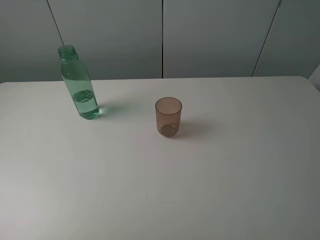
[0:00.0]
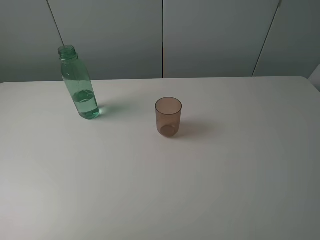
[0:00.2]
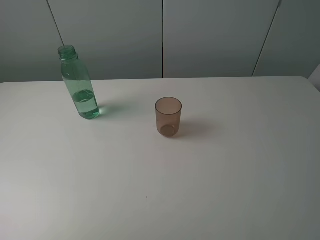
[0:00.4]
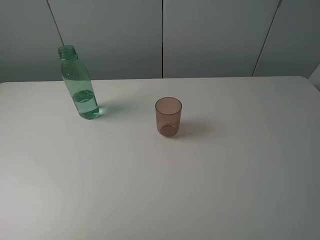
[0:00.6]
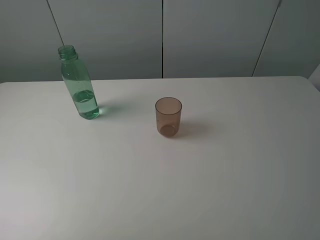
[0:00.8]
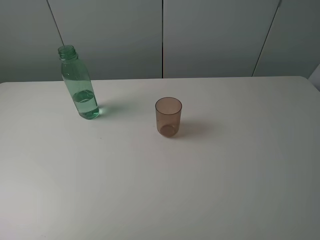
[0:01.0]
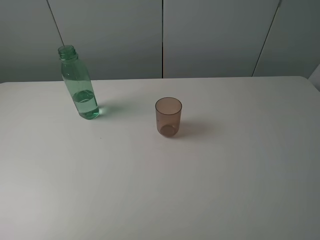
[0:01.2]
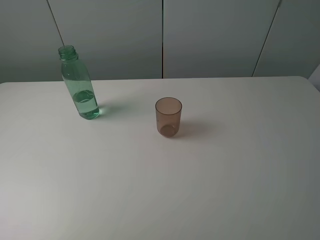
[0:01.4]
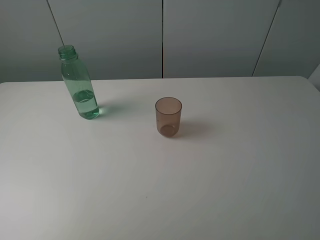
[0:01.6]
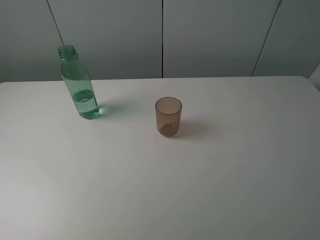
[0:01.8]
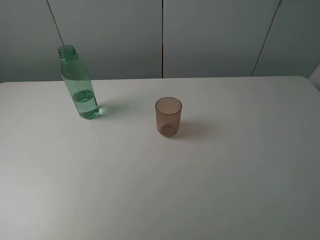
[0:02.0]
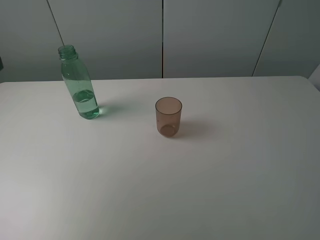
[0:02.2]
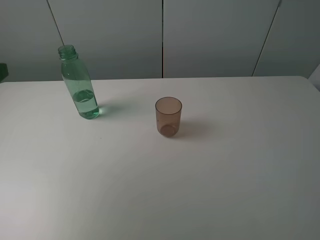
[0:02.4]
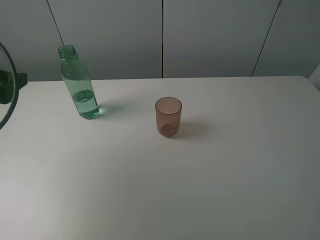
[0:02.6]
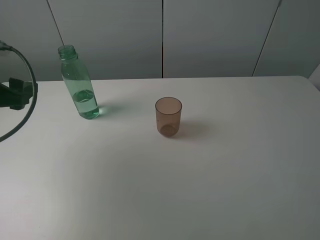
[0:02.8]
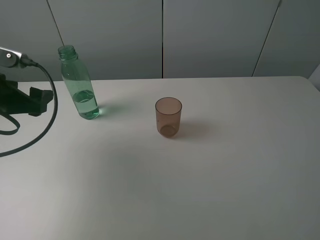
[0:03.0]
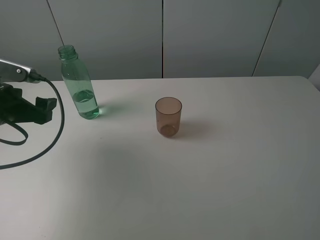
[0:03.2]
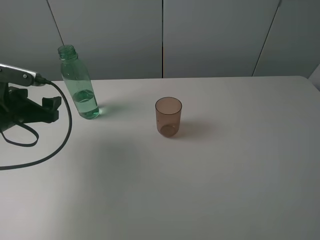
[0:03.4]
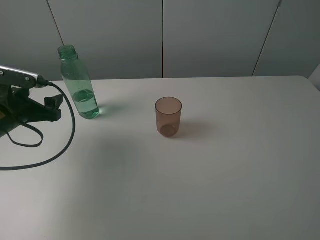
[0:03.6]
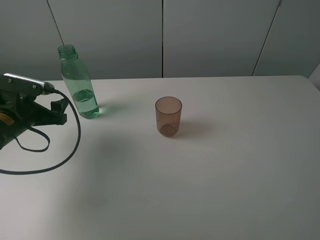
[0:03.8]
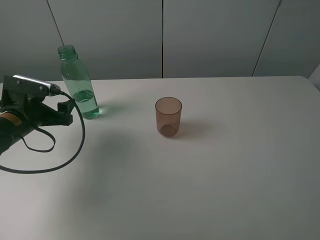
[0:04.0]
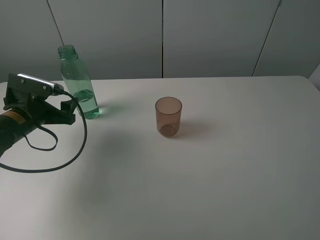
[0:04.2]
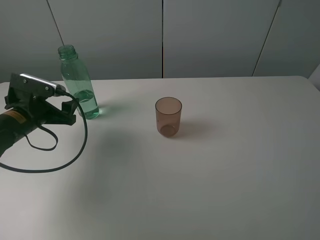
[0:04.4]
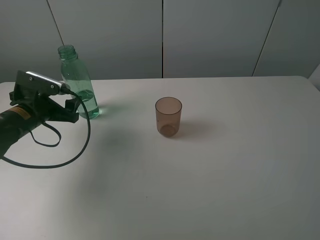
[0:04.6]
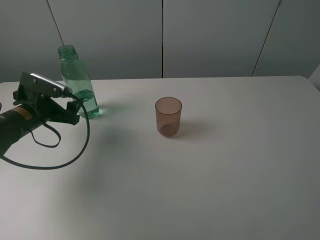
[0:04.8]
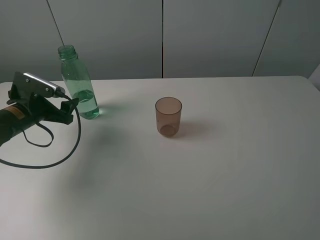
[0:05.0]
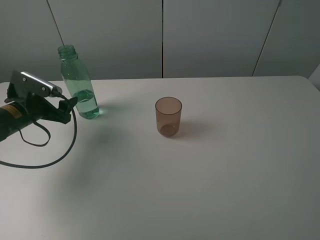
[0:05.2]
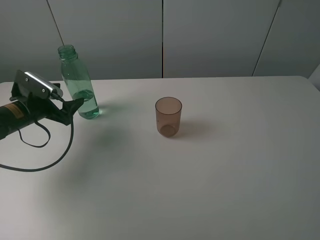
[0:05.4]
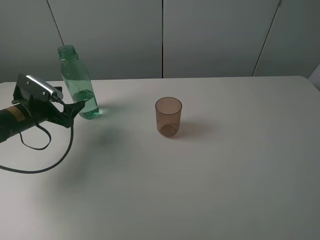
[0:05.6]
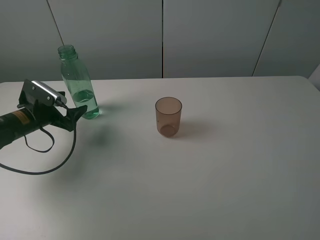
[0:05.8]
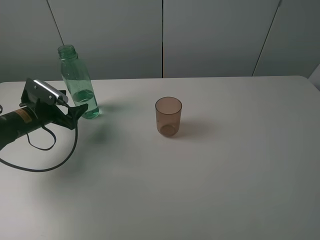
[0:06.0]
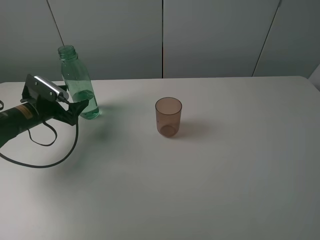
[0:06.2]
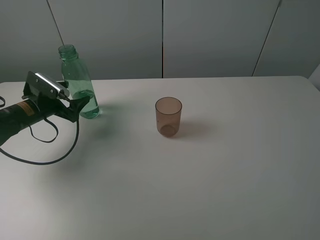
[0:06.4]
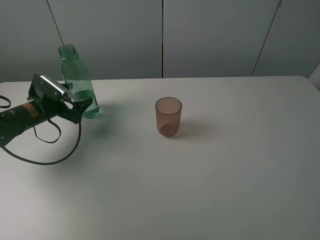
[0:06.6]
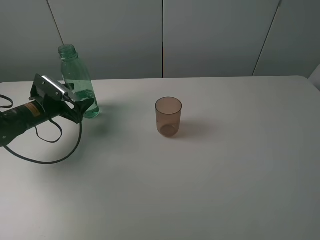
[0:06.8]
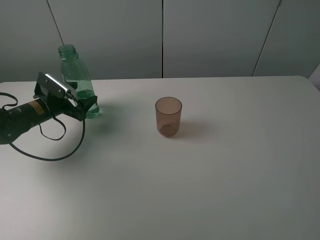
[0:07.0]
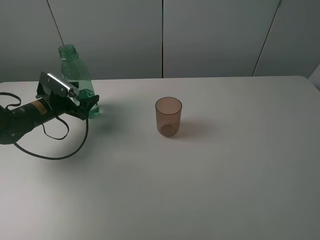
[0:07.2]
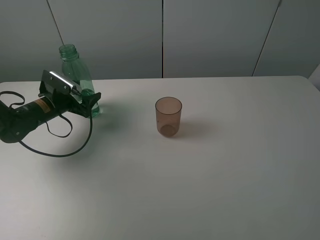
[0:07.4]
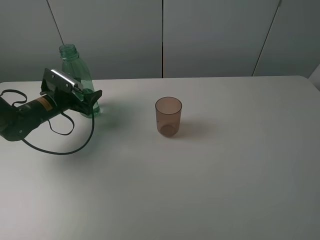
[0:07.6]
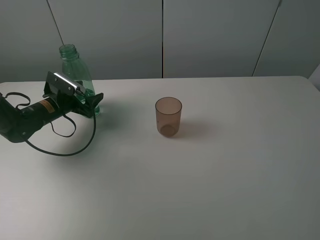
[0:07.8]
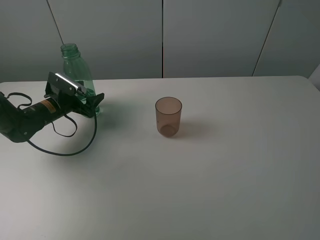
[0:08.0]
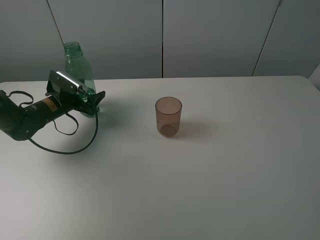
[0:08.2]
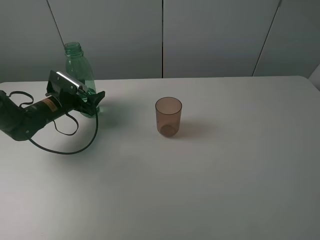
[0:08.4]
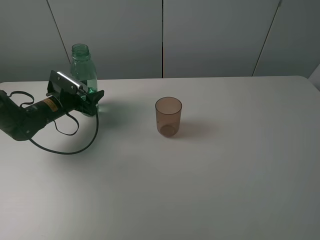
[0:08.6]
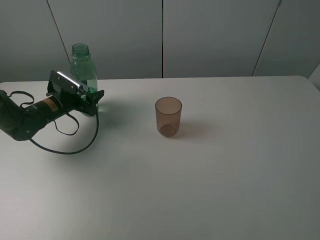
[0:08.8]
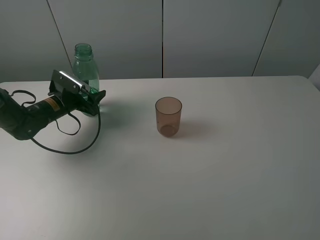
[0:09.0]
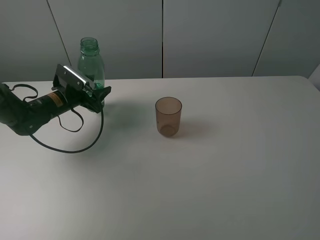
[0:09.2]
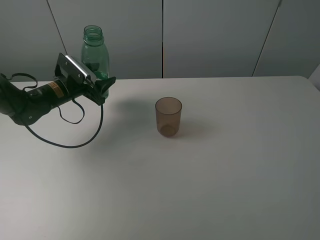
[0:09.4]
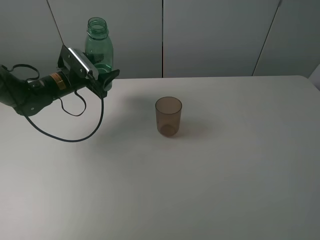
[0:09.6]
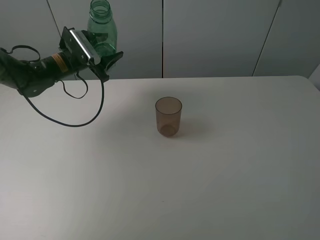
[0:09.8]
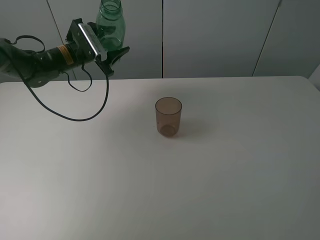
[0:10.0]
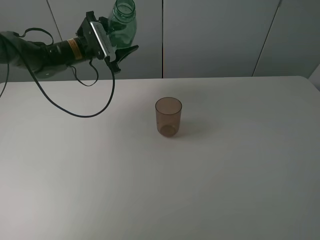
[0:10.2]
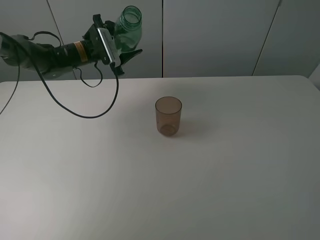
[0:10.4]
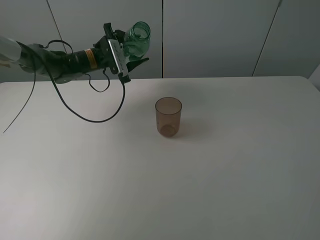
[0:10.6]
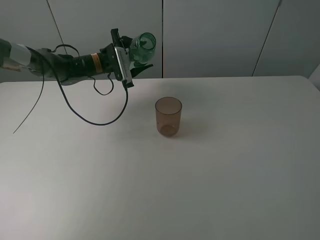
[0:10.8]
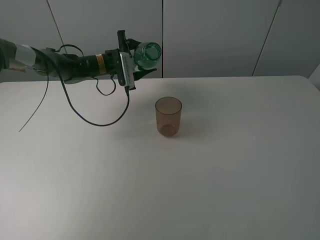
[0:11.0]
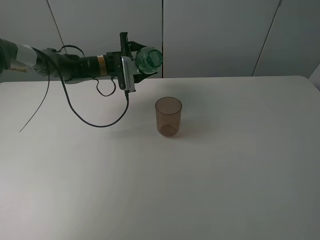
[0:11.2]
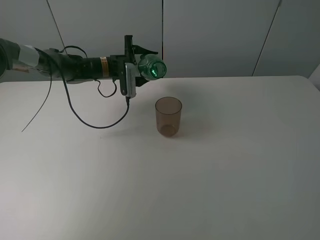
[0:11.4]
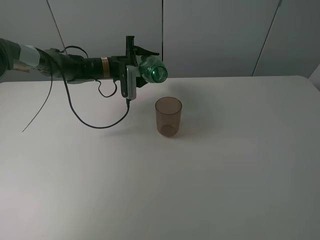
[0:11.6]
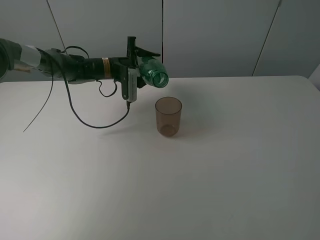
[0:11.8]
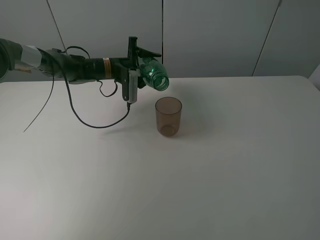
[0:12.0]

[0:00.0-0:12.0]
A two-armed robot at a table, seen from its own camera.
Task of the whole recording: pick up the bottle filled with water and pour it into the pink cup.
Step, 0:00.0 to 0:08.8: Grasp the green bottle with the left gripper.
0:01.6 to 0:03.0: The left gripper travels downward and forward by roughly 25 cm.
0:03.0 to 0:04.4: The left gripper goes roughly 10 cm downward.
0:04.4 to 0:06.0: The left gripper ends up roughly 5 cm from where it was.
0:06.0 to 0:07.6: The left gripper changes place by about 5 cm.
0:07.6 to 0:09.0: The left gripper closes up.
0:09.0 to 0:10.4: The left gripper goes approximately 15 cm upward, forward and to the right.
0:10.4 to 0:12.0: The left gripper moves to the right, some 5 cm.

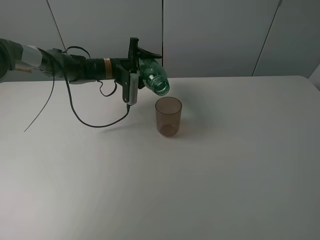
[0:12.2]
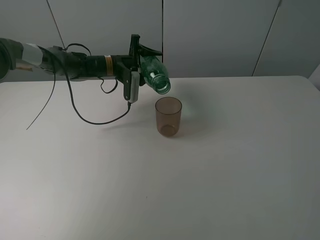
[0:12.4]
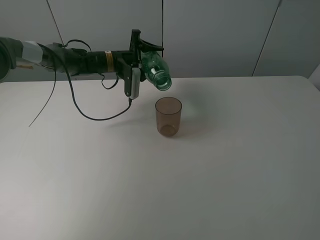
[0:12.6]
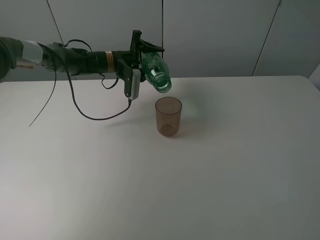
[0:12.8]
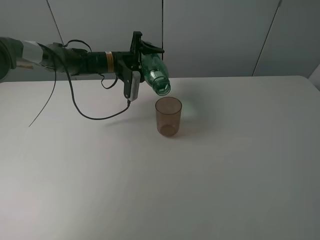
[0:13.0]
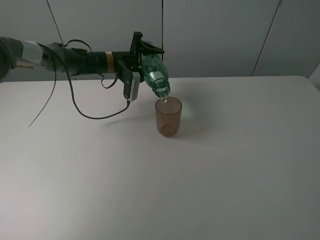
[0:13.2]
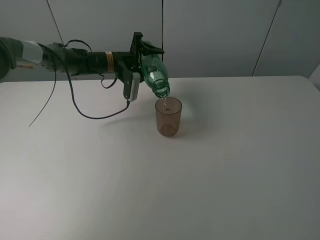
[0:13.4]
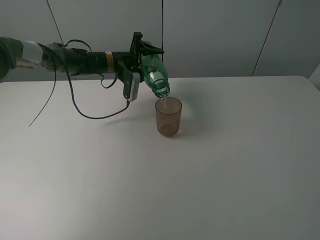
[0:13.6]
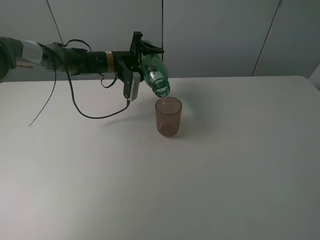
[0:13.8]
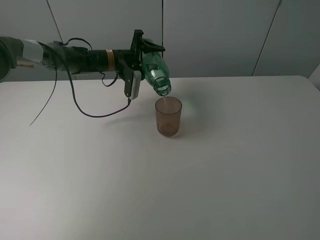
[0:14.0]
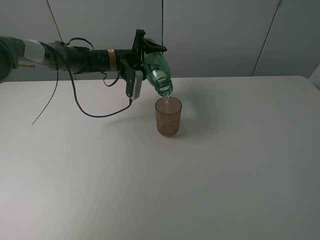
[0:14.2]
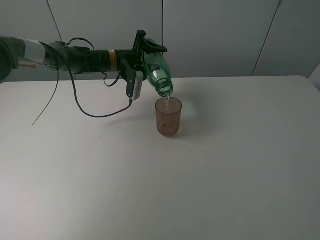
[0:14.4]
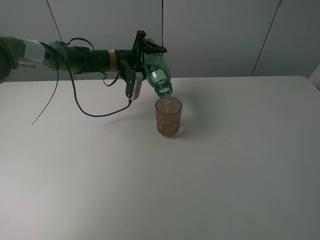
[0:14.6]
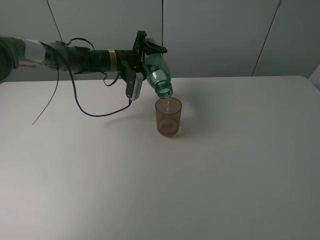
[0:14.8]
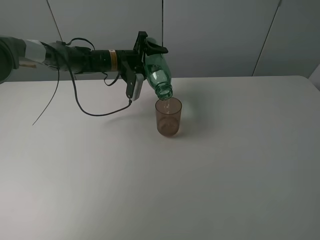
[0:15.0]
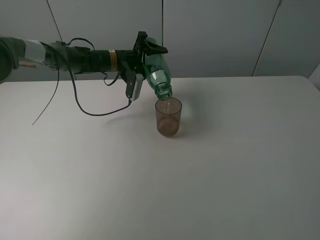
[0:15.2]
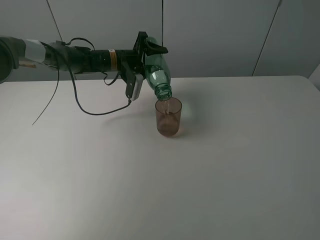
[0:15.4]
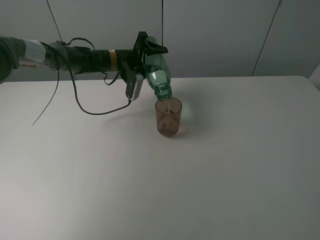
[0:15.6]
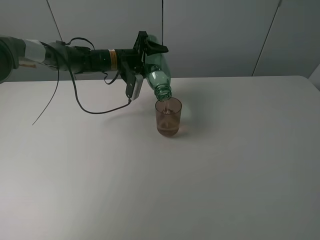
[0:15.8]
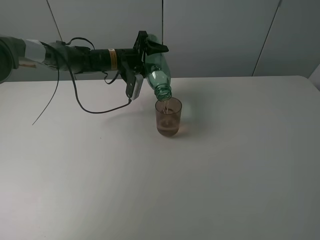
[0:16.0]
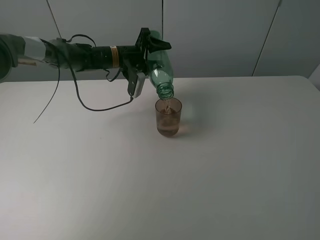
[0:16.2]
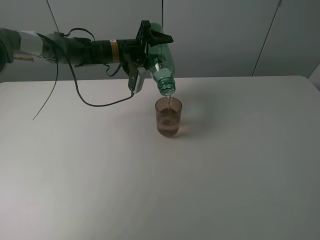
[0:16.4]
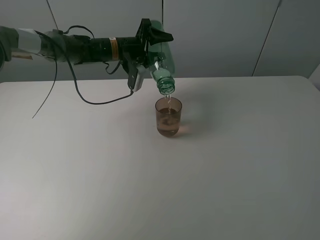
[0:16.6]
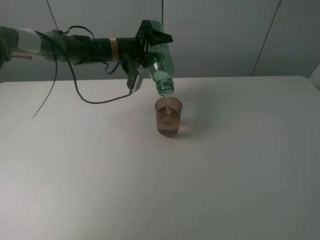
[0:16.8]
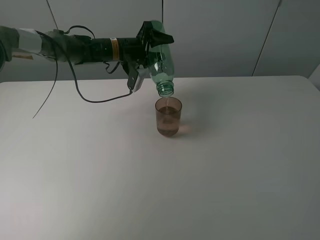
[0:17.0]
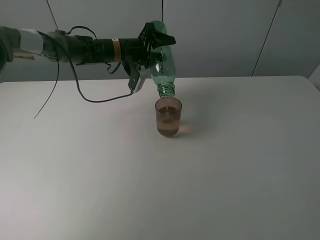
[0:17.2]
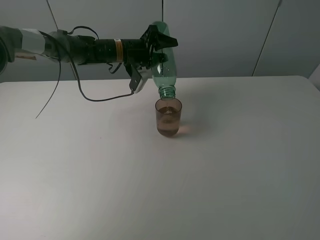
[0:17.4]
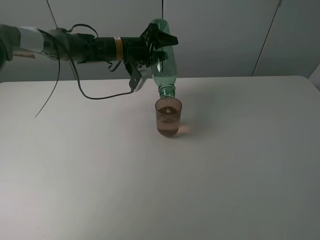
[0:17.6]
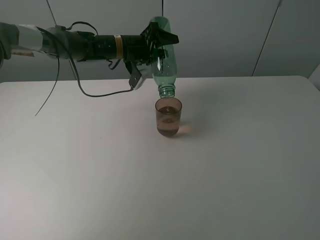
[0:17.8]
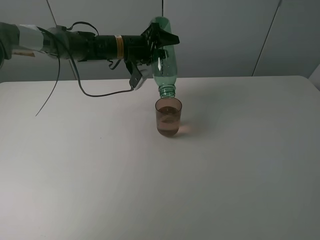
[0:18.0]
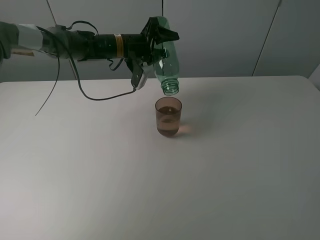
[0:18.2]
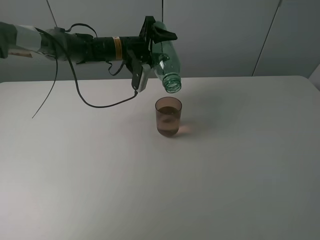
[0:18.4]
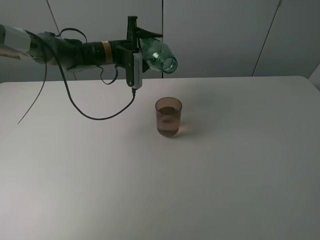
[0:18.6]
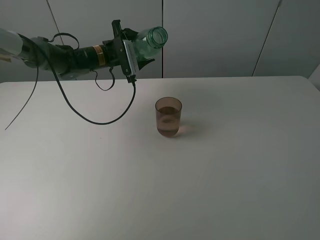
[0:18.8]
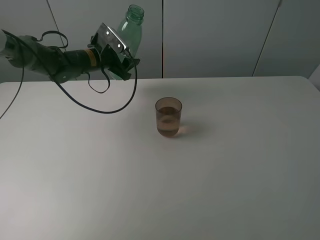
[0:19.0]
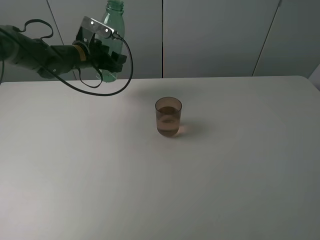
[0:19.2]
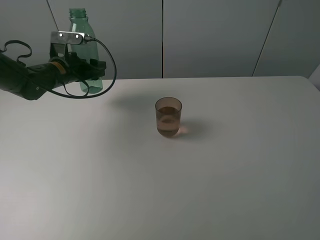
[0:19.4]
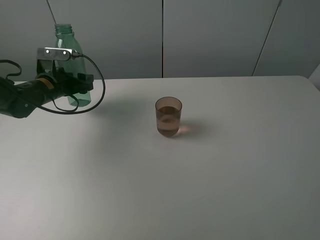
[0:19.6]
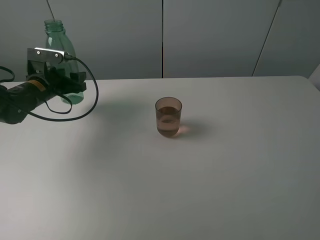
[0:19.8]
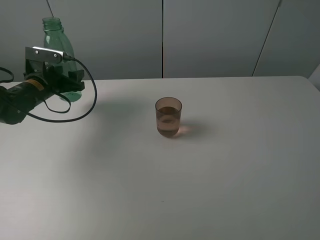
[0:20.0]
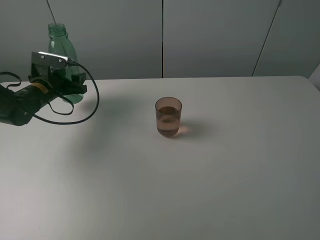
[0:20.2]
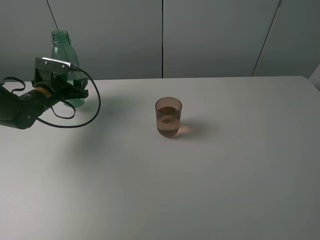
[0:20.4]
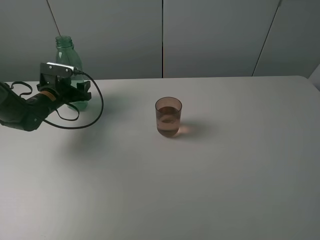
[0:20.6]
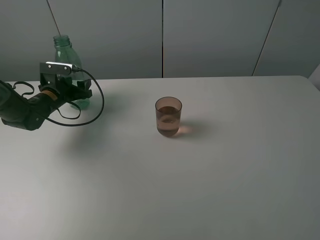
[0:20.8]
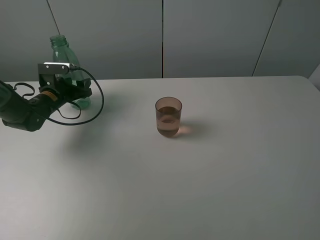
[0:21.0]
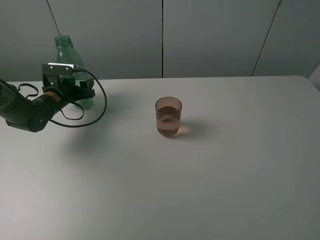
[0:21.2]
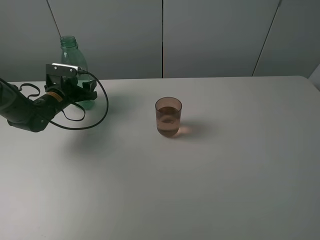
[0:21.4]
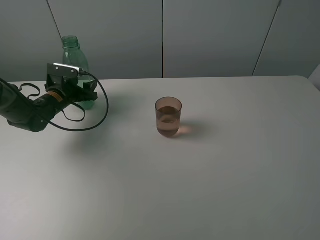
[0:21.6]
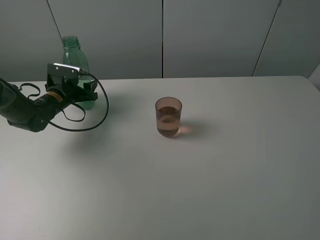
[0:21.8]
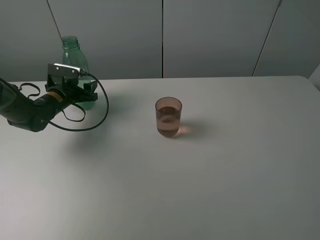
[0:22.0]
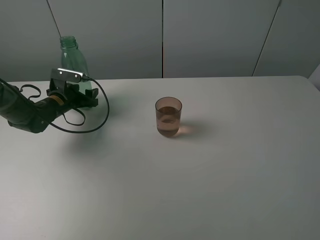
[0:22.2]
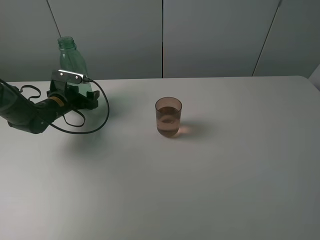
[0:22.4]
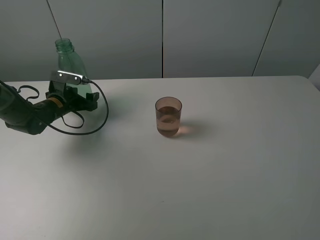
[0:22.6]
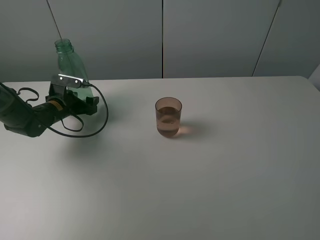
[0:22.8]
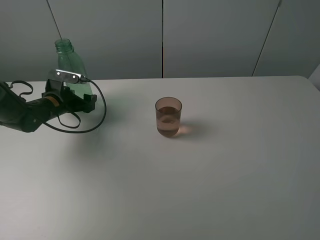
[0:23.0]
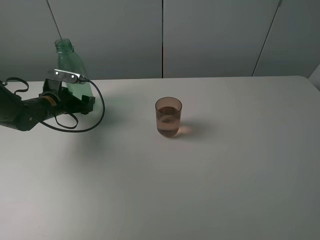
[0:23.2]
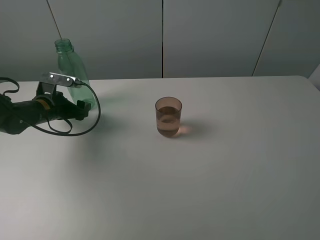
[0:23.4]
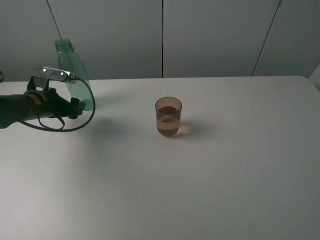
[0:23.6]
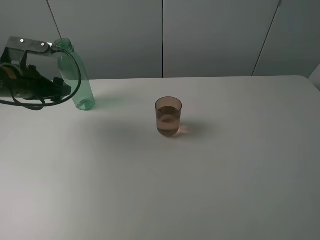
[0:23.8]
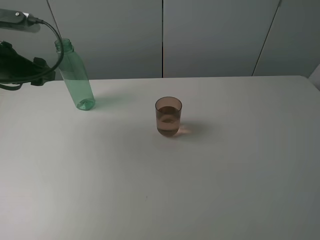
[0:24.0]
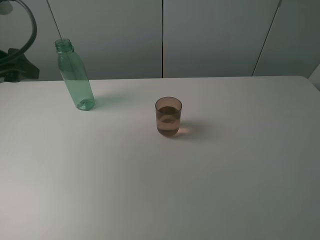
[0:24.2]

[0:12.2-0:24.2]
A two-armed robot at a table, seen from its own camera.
Task of the whole recording: pick up the bottle filled with water and pour it into the pink cup.
Step, 0:12.2 to 0:18.6: Pour water from green bottle to pink cup with the left gripper.
Step, 0:18.8 to 0:23.4: Place the green bottle with the left gripper.
0:12.2 to 0:15.2: The grippers move only a little.
0:15.2 to 0:16.6: There are only small adjustments of the grippers.
0:16.6 to 0:18.2: The grippers make only small movements.
0:18.2 to 0:19.8: The left gripper moves to the left and backward, roughly 20 cm.
0:19.8 to 0:21.2: The left gripper goes approximately 5 cm downward.
0:21.2 to 0:22.6: The left gripper opens up.
0:22.6 to 0:24.2: The left gripper is displaced upward and backward by approximately 30 cm.
